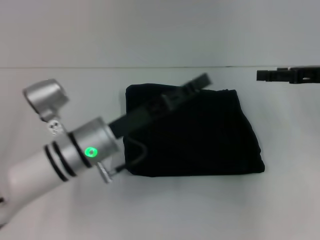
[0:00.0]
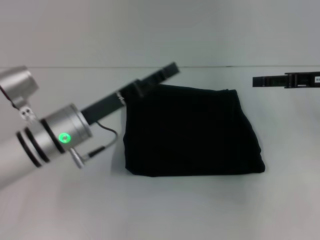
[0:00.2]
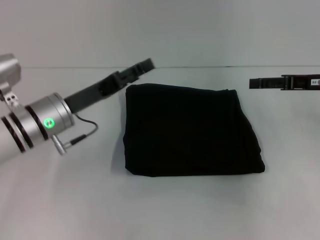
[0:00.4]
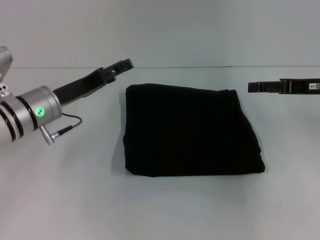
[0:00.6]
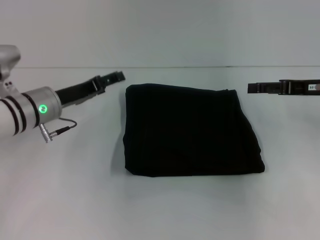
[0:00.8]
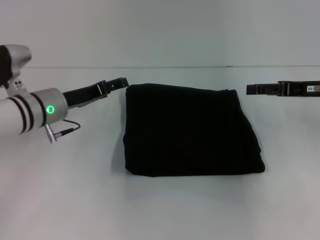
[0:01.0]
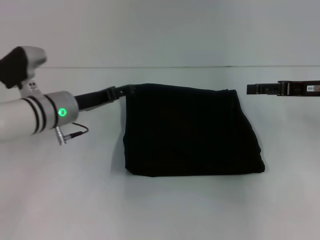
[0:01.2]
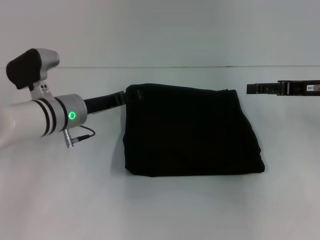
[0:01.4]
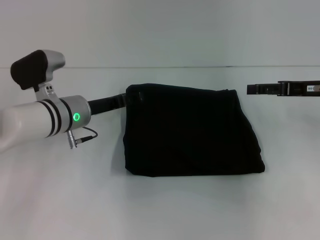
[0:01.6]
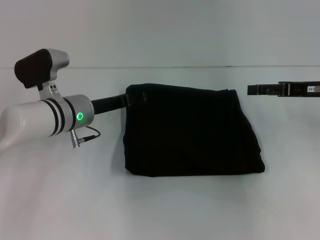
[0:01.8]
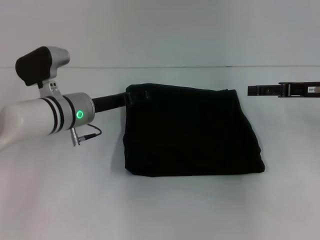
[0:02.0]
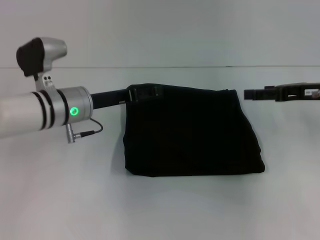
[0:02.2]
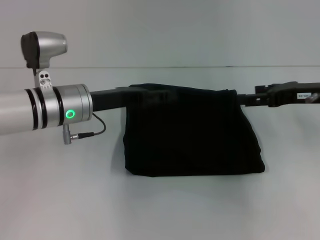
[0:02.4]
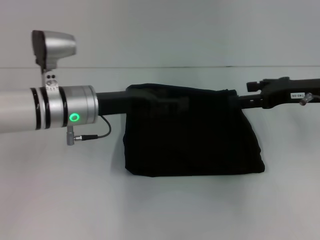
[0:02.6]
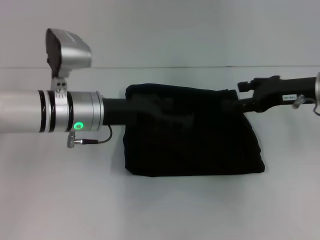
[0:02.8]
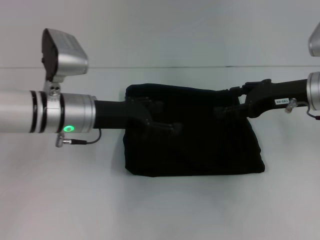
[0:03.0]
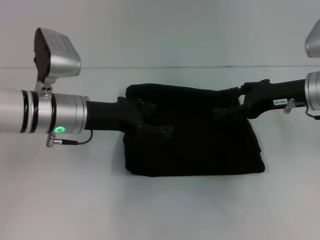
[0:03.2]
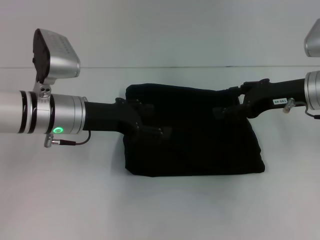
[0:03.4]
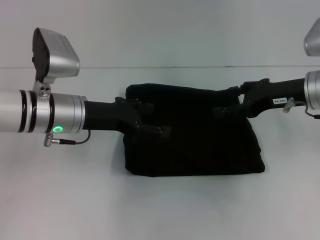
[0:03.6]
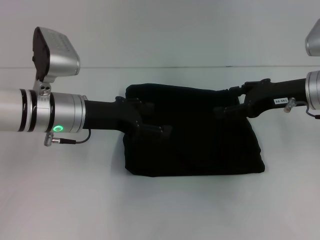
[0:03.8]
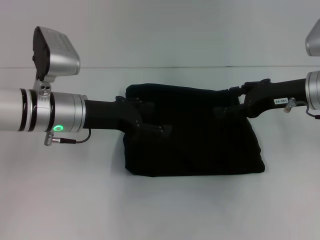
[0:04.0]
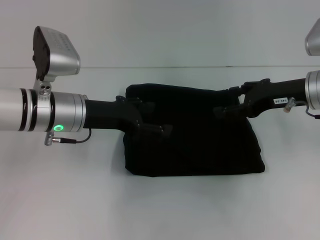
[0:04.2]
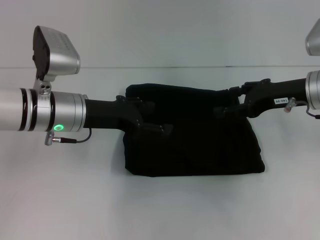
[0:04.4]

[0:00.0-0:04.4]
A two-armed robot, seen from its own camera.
0:00.0 to 0:01.4: The left gripper travels forward and to the left by roughly 10 cm.
0:01.4 to 0:03.0: The left gripper changes place by roughly 5 cm. Meanwhile the right gripper travels to the left by some 5 cm.
0:03.0 to 0:04.4: The two grippers keep their place.
